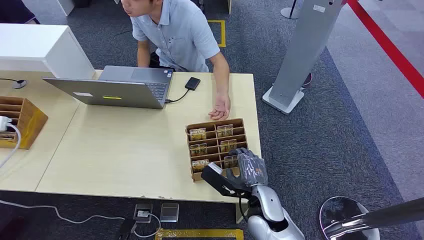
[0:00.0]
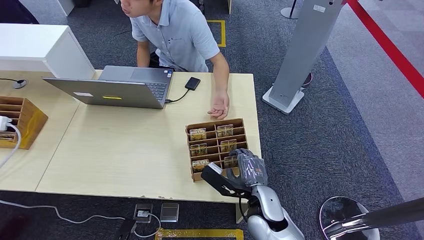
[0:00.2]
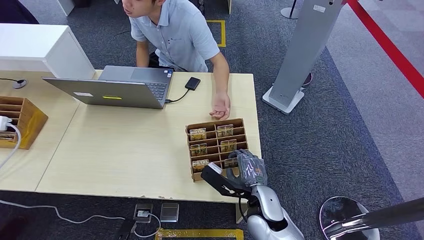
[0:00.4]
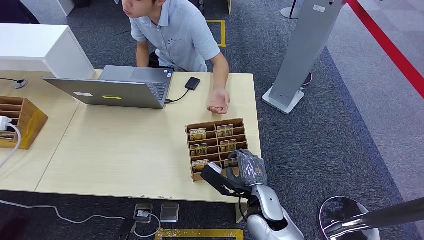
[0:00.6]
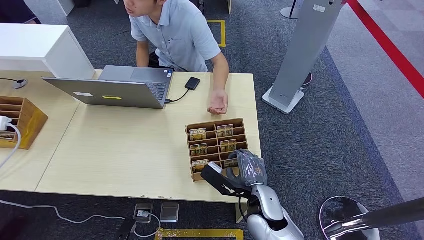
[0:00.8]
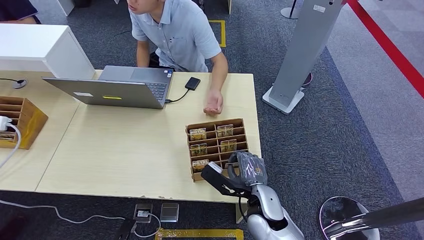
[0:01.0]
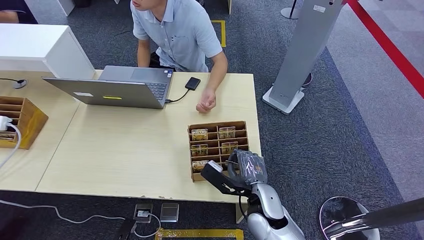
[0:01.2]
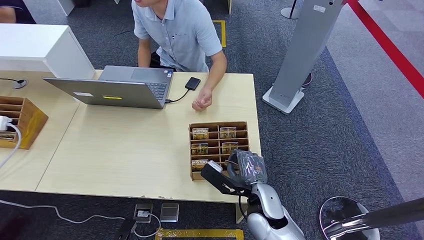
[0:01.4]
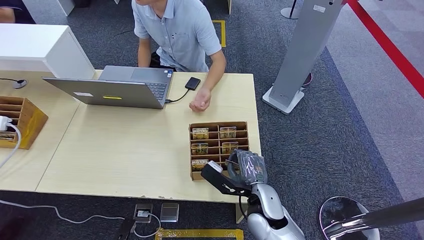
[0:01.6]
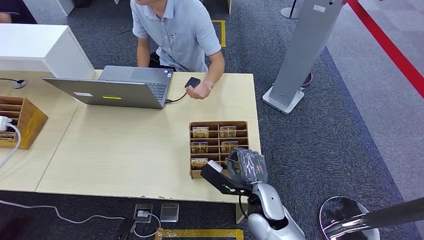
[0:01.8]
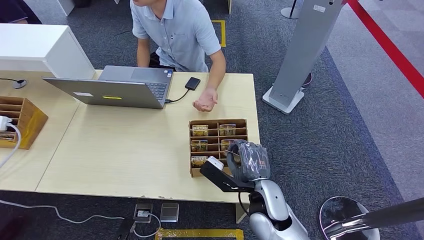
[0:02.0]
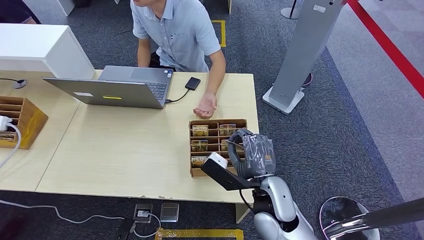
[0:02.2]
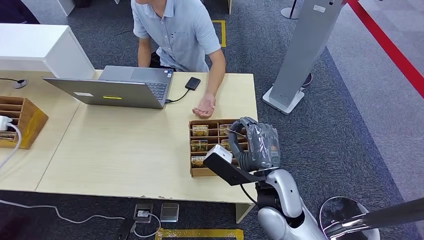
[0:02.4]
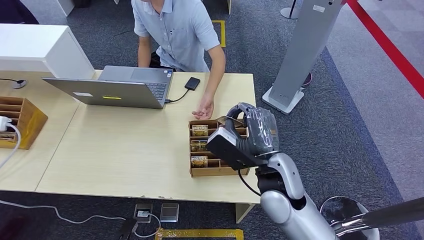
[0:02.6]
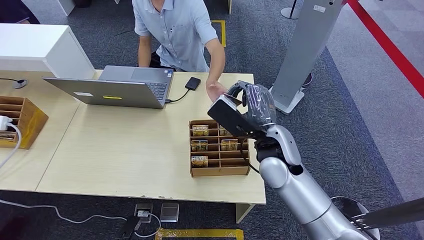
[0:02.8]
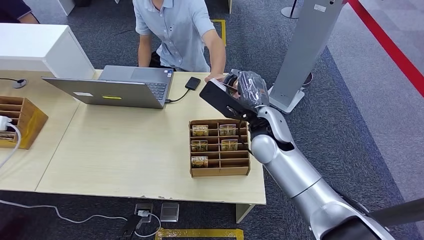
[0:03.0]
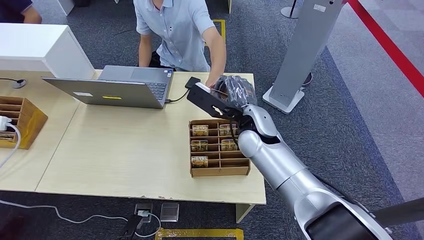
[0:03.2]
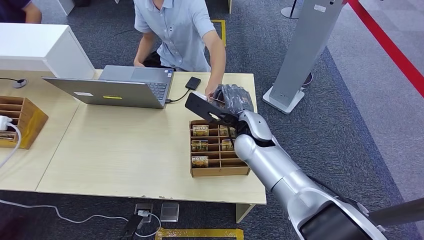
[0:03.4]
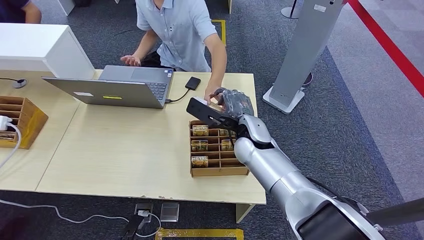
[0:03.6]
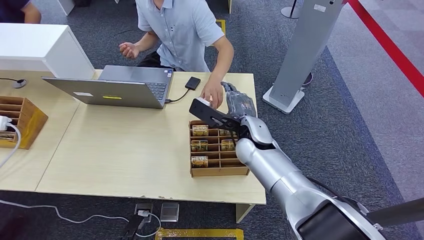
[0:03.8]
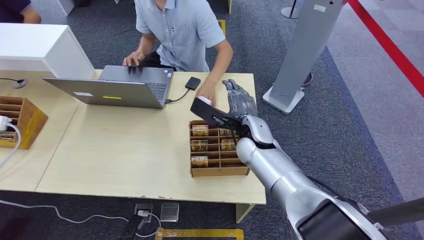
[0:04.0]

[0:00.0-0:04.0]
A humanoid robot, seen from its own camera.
Step, 0:00.0 to 0:02.0: Pick up the key card from the card box.
Step, 0:03.0 to 0:04.0: Hand the key card to the target.
0:01.4 to 0:02.6: The right hand shifts roughly 10 cm upward.
0:02.6 to 0:04.0: The right hand travels forward by approximately 10 cm.

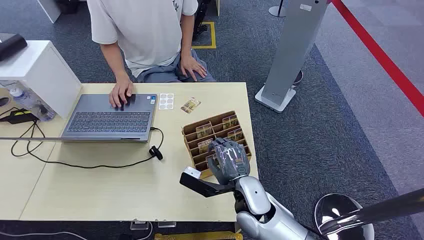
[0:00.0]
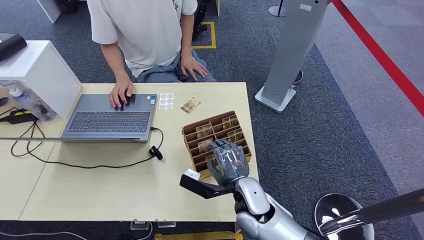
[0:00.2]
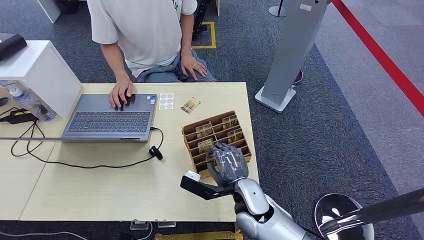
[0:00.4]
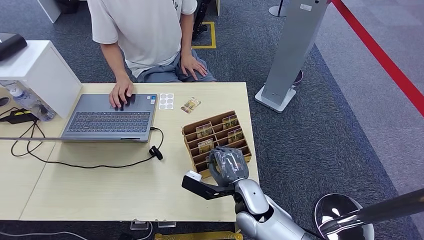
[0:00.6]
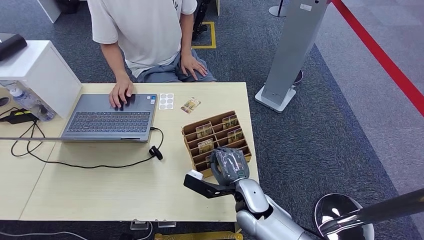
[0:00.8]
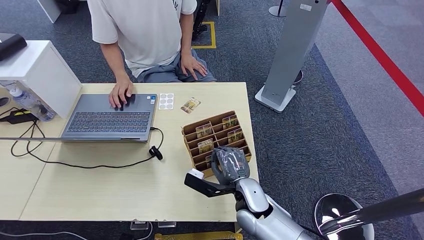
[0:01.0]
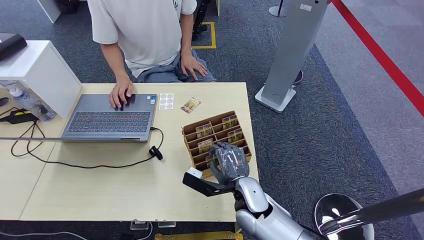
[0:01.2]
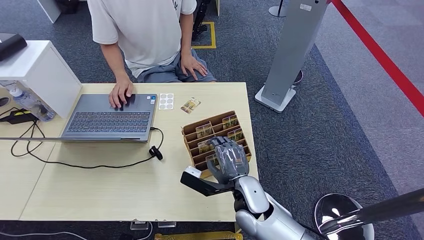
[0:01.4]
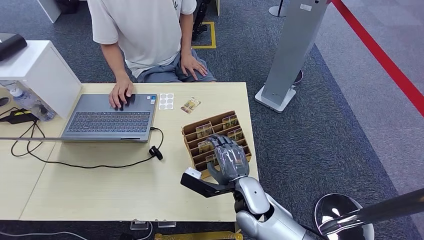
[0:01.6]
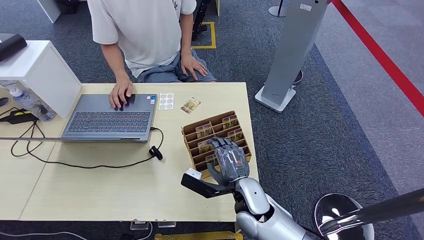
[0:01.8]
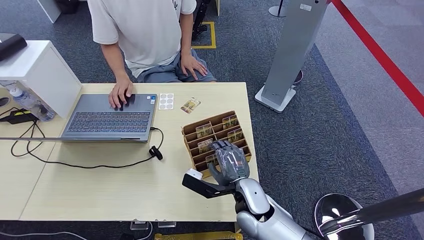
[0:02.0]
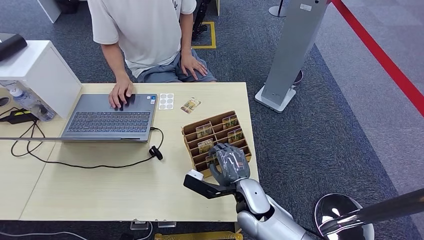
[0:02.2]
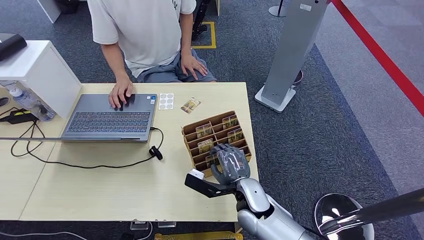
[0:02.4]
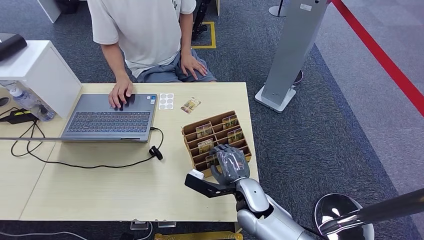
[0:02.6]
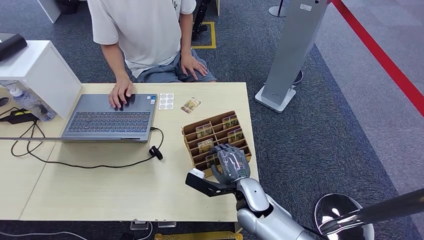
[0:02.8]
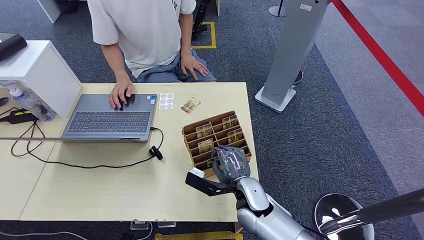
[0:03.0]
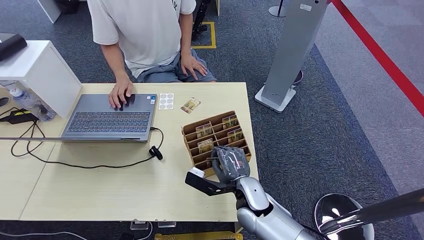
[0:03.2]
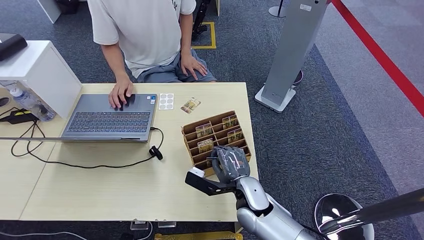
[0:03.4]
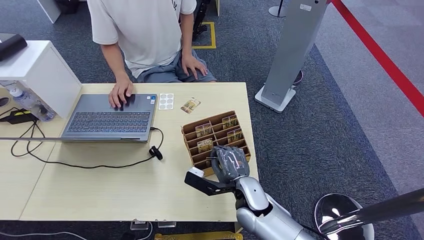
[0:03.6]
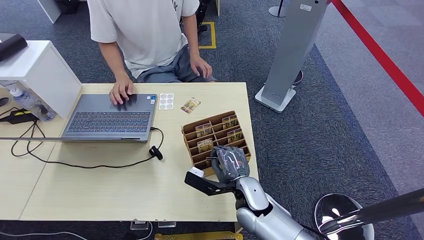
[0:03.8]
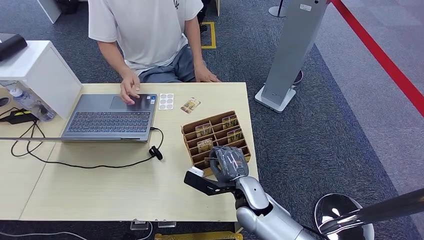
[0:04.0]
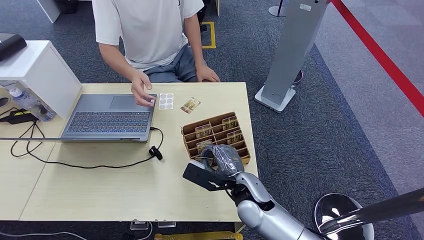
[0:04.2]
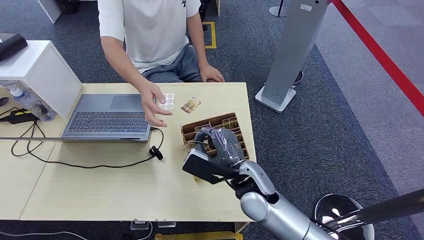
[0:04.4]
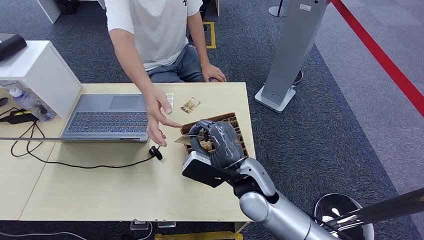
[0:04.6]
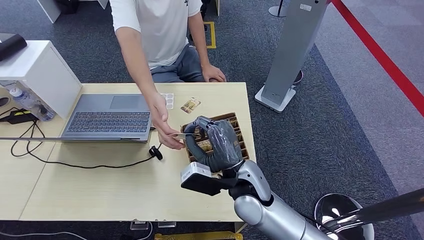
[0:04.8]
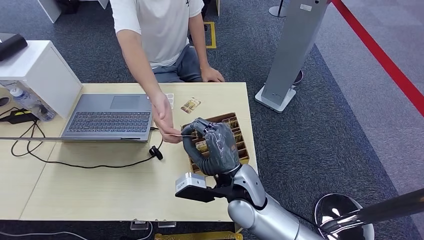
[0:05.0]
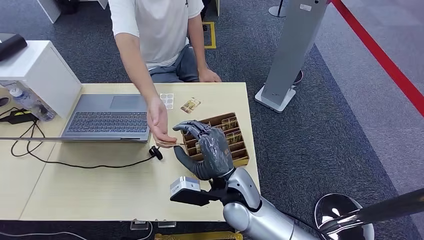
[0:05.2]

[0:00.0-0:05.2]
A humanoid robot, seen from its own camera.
Step, 0:00.0 to 0:04.2: Pick up the key card from the card box.
Step, 0:04.6 to 0:05.0: Hand the key card to the target.
0:01.8 to 0:03.4: There are only small adjustments of the hands.
0:03.4 to 0:05.2: The right hand moves upward, approximately 10 cm.
